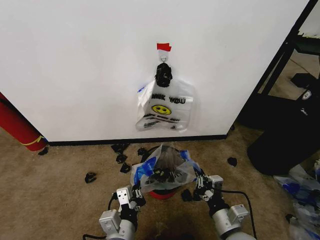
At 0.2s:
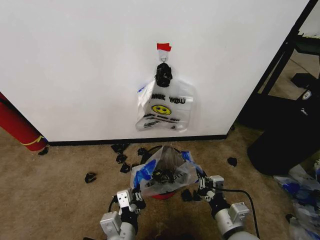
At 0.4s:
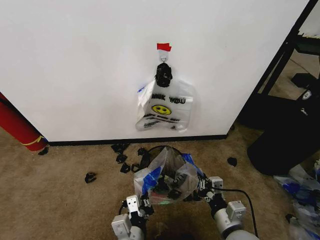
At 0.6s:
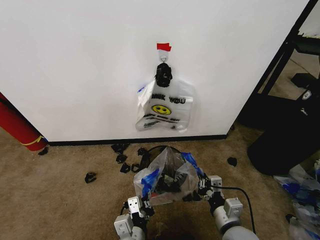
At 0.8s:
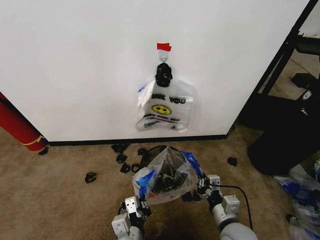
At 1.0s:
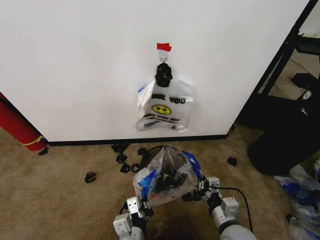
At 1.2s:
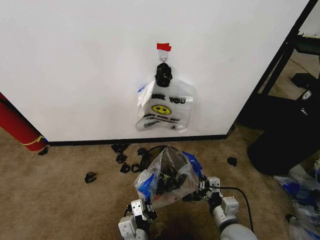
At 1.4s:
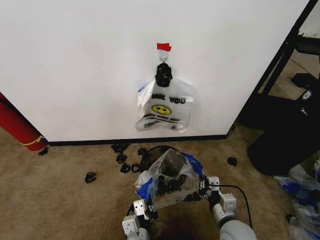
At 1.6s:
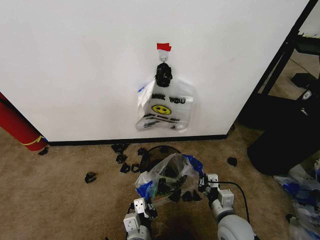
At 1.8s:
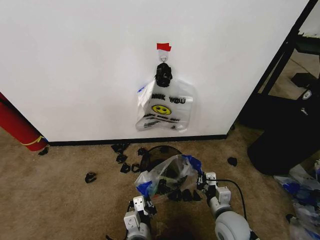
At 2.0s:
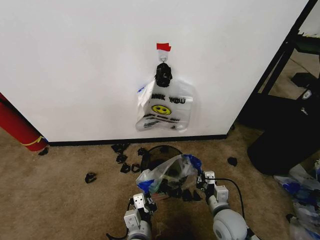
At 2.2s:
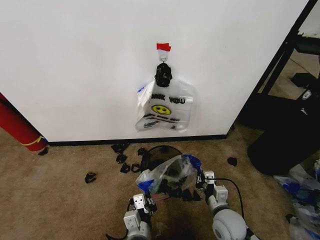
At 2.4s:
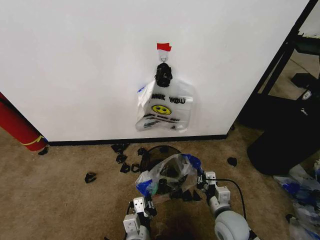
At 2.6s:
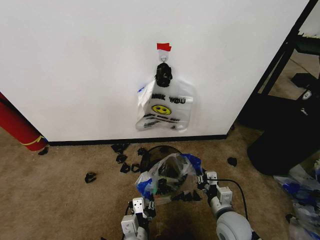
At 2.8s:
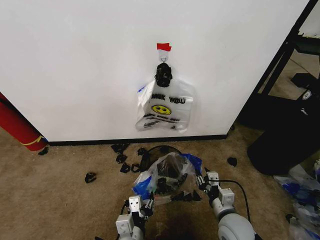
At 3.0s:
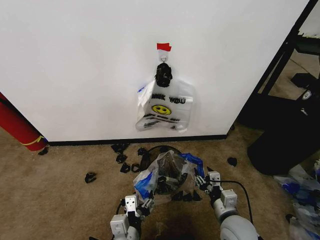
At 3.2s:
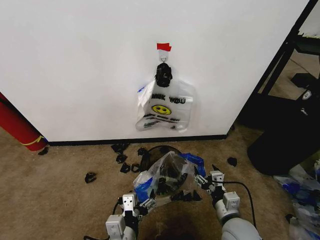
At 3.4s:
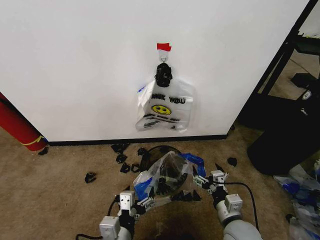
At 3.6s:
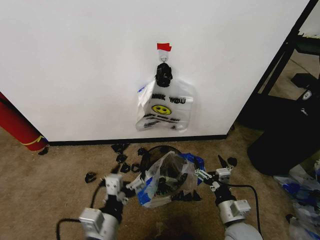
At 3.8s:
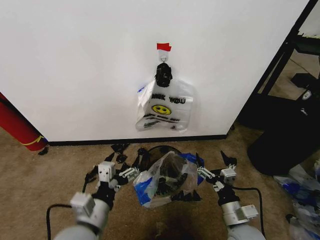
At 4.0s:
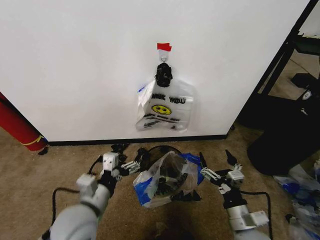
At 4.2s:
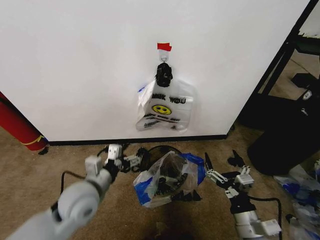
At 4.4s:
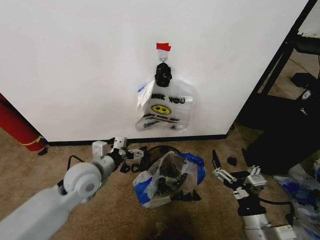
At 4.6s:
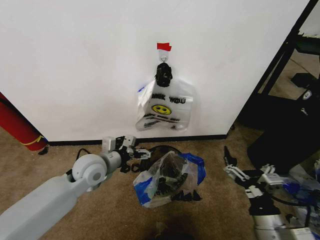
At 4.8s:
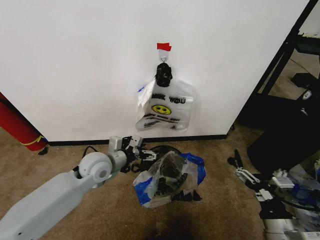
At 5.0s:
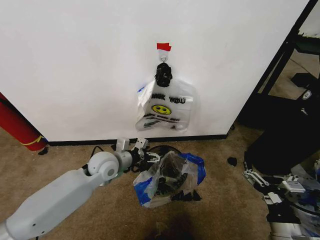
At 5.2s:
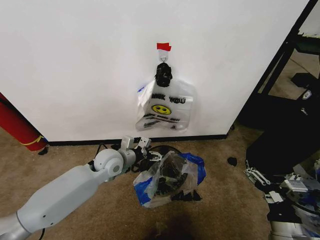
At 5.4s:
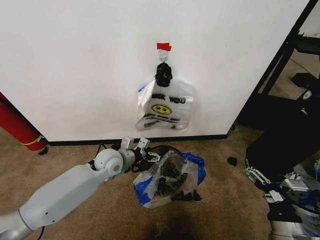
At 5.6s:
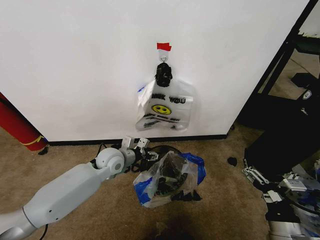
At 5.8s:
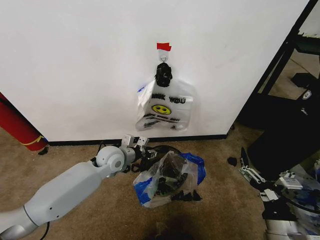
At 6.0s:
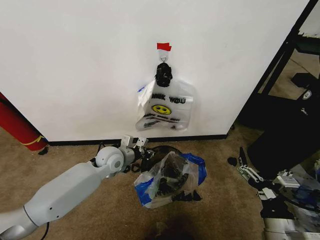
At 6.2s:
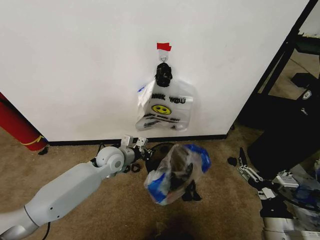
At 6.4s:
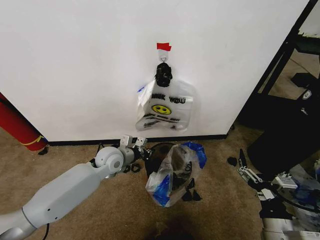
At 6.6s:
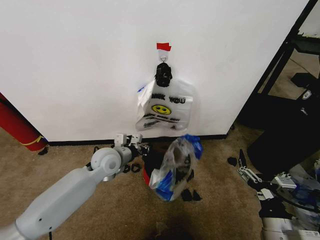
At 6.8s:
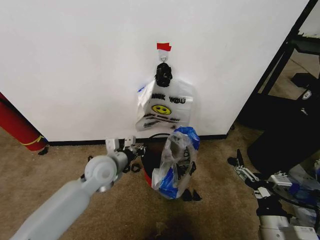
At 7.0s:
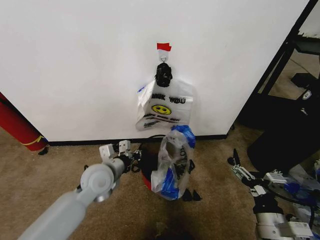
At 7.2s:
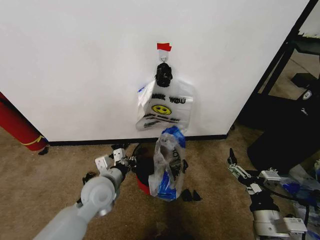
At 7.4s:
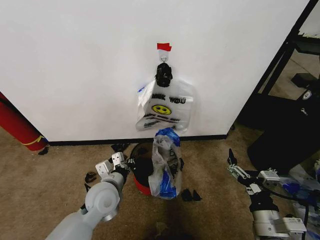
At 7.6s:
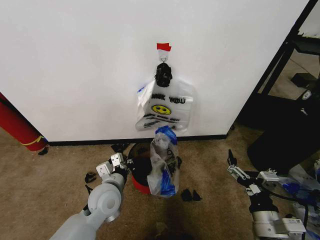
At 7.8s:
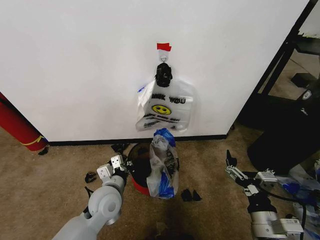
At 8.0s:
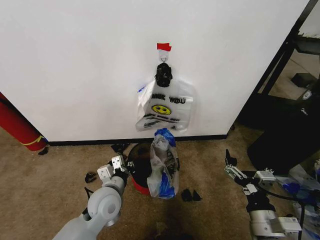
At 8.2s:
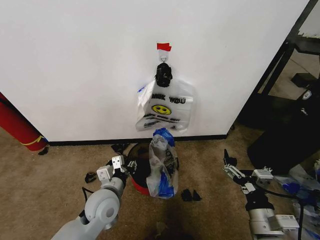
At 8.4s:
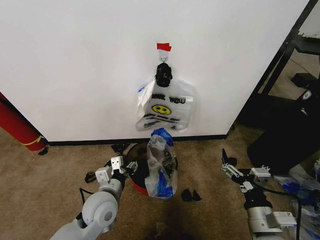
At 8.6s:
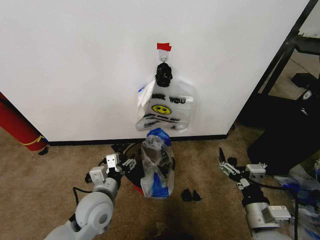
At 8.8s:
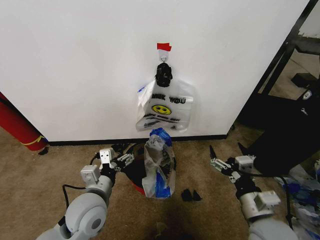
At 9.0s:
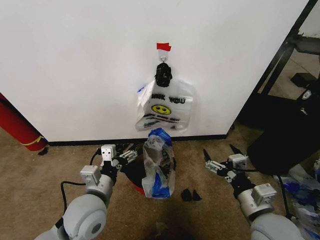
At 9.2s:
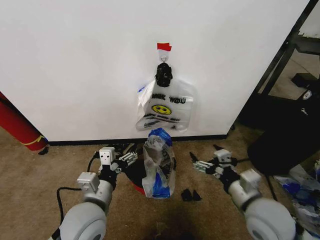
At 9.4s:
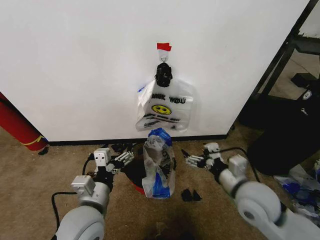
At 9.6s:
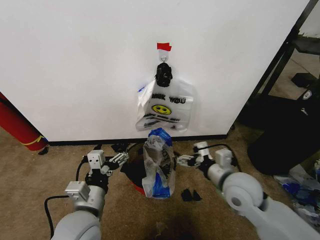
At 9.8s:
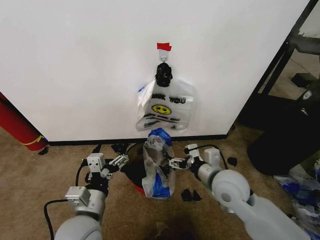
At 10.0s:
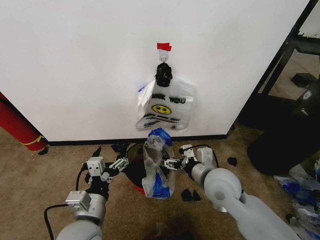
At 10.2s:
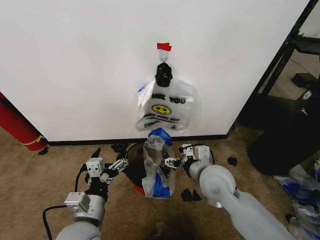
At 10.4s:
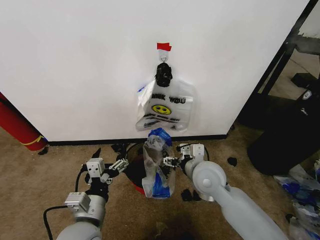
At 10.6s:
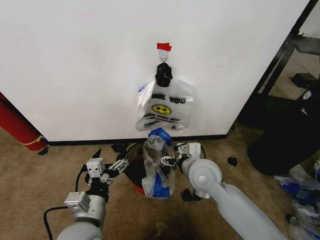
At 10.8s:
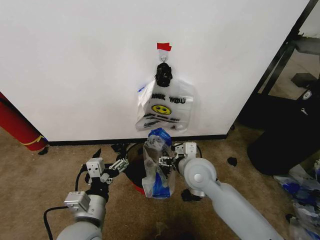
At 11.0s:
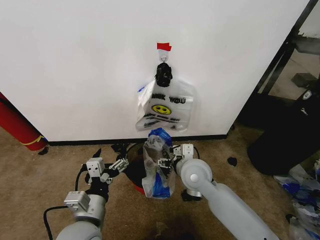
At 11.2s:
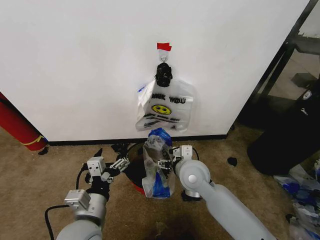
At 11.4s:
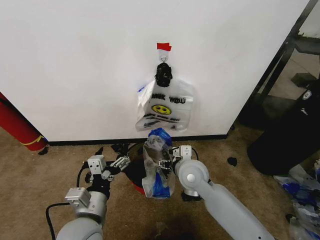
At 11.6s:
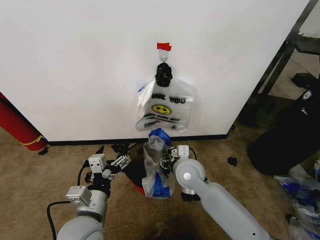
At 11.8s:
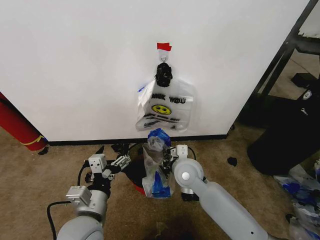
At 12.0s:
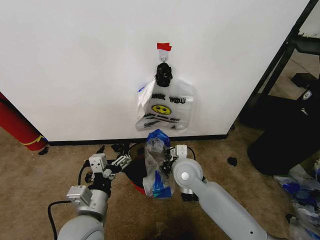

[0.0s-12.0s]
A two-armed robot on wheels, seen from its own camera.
Task of the whole recording: Pick up the garbage bag from the wall and place it over the trash bin.
0.0s to 1.6s: The left gripper is displaced downward by roughly 5 cm, while the right gripper ends up roughly 5 cm from where it was.
1.6s to 3.0s: The right gripper opens up. Meanwhile the left gripper ends up about 5 cm from where it was, and opens.
3.0s to 4.4s: The left gripper shifts some 25 cm forward, to the left and upward, while the right gripper goes roughly 10 cm backward and upward, and opens.
4.4s to 6.0s: The left gripper moves forward and downward, roughly 10 cm, and closes its fingers.
6.0s to 7.6s: The left gripper moves backward, about 15 cm.
7.6s to 9.0s: The right gripper changes place by about 5 cm. Meanwhile the left gripper moves upward and backward, approximately 10 cm, and opens.
9.0s to 10.4s: The left gripper heads backward, covering approximately 5 cm. Meanwhile the right gripper goes approximately 20 cm forward and to the left.
10.4s to 12.0s: The right gripper travels to the left by some 5 cm, and closes.

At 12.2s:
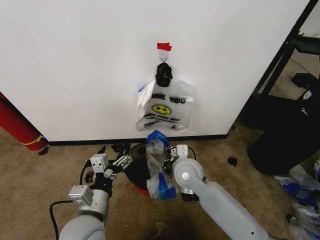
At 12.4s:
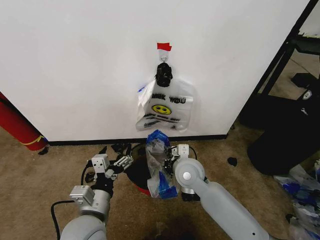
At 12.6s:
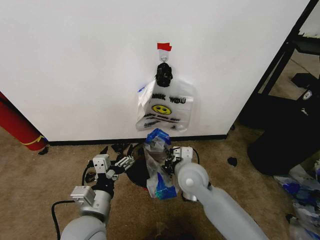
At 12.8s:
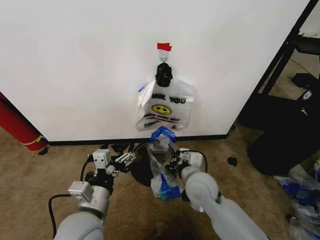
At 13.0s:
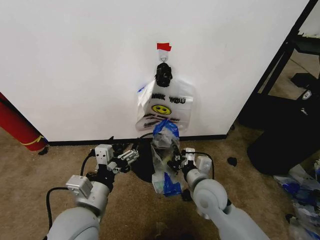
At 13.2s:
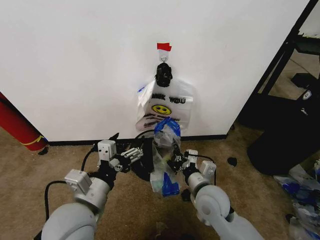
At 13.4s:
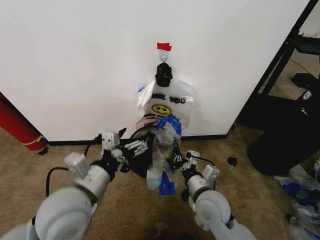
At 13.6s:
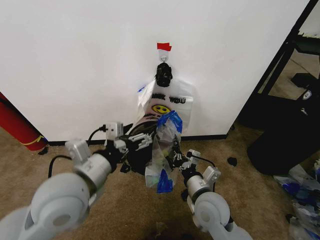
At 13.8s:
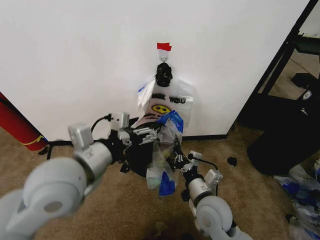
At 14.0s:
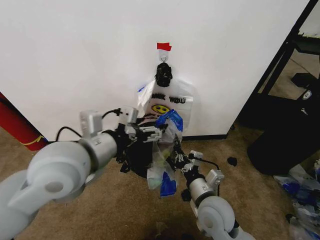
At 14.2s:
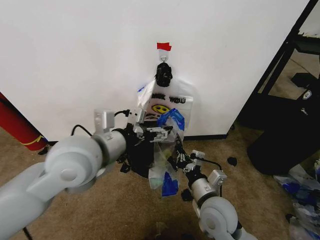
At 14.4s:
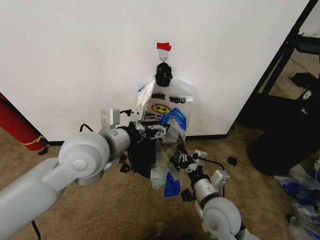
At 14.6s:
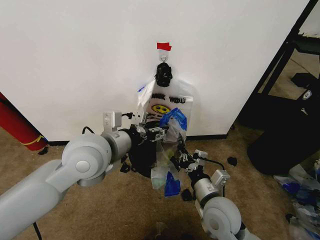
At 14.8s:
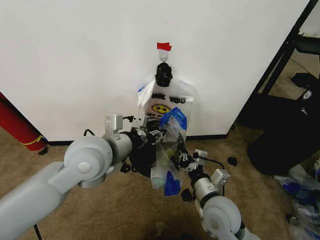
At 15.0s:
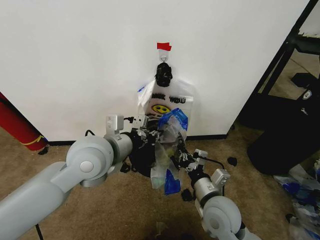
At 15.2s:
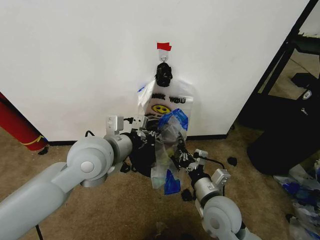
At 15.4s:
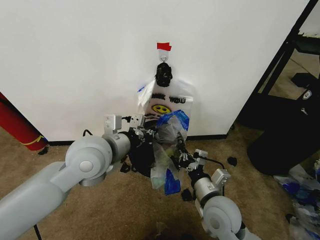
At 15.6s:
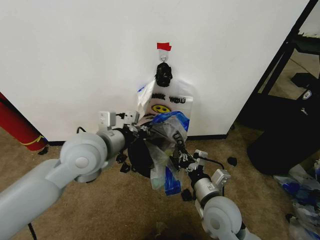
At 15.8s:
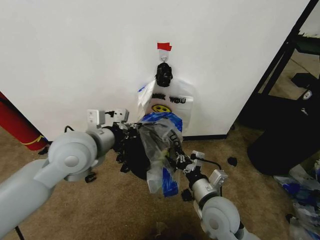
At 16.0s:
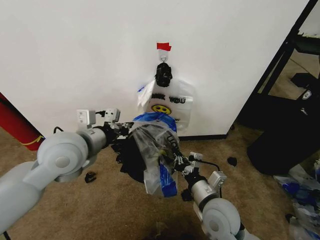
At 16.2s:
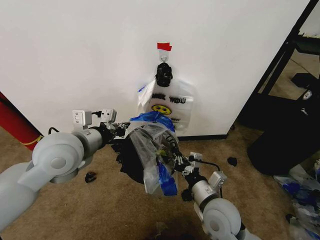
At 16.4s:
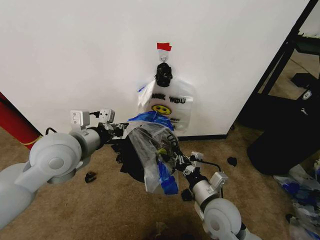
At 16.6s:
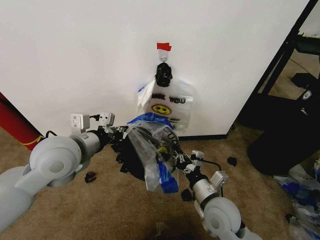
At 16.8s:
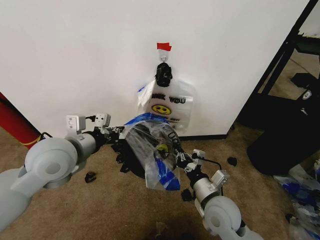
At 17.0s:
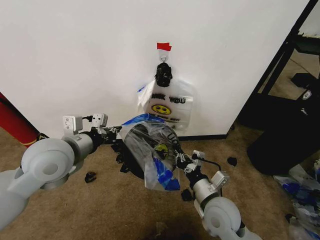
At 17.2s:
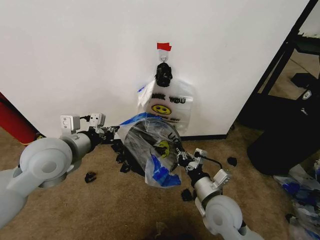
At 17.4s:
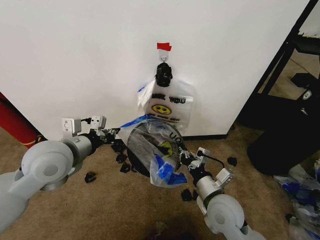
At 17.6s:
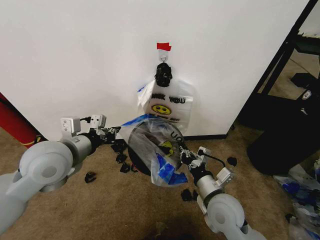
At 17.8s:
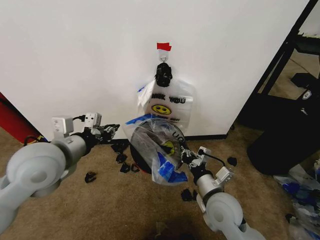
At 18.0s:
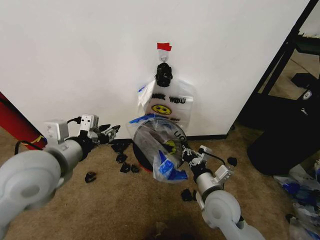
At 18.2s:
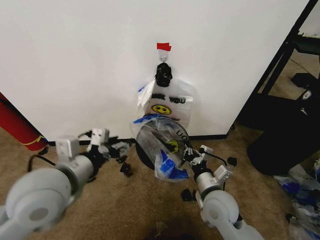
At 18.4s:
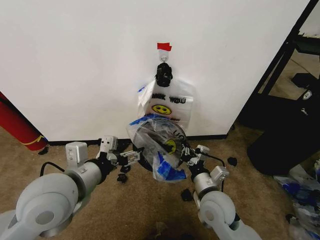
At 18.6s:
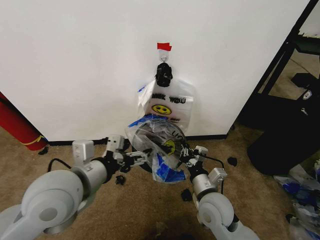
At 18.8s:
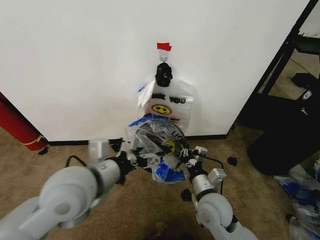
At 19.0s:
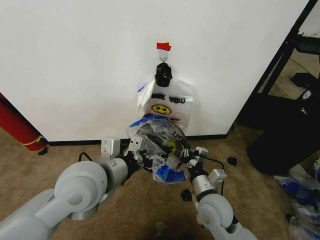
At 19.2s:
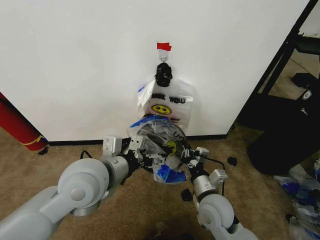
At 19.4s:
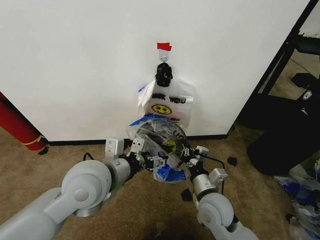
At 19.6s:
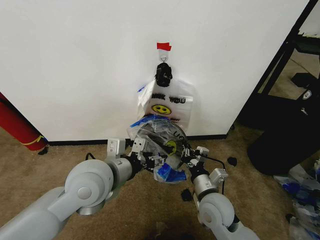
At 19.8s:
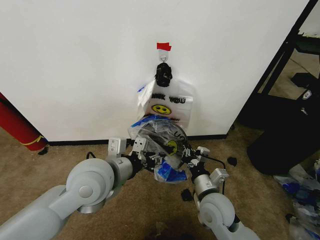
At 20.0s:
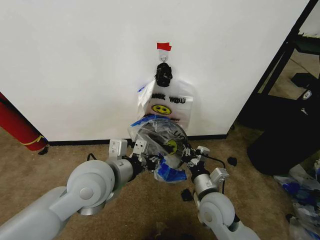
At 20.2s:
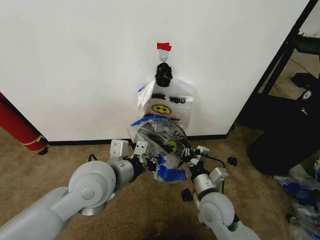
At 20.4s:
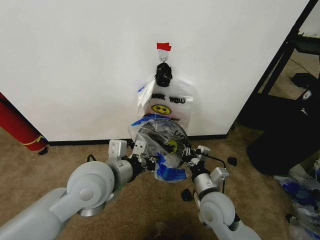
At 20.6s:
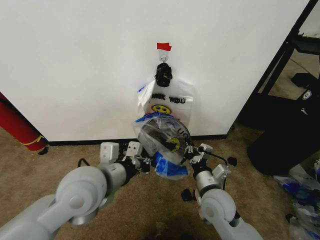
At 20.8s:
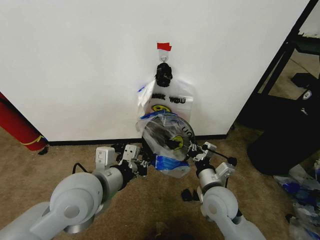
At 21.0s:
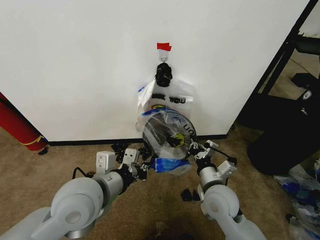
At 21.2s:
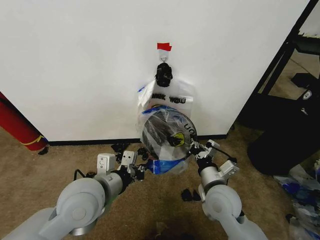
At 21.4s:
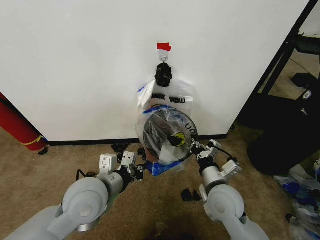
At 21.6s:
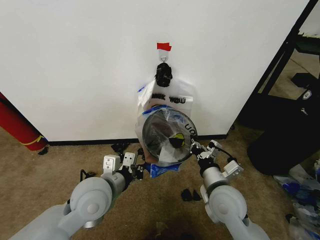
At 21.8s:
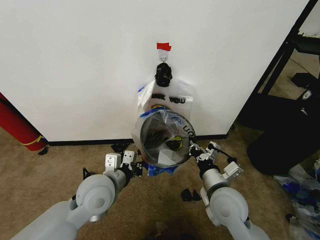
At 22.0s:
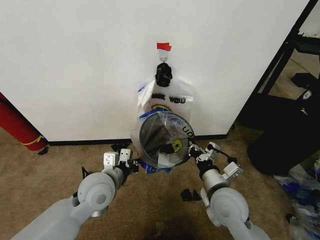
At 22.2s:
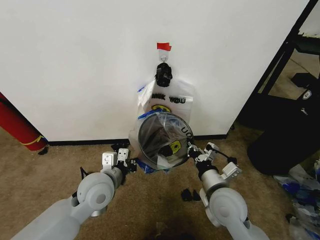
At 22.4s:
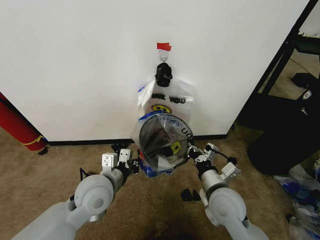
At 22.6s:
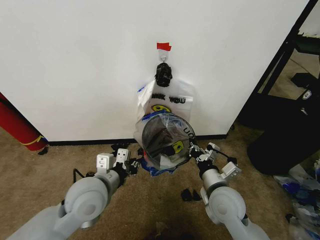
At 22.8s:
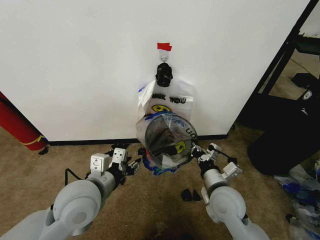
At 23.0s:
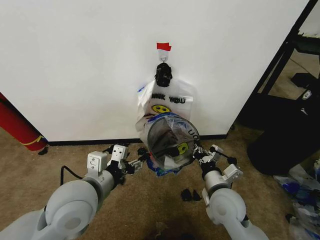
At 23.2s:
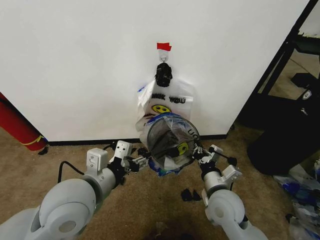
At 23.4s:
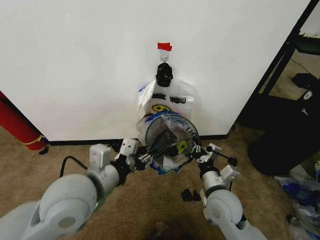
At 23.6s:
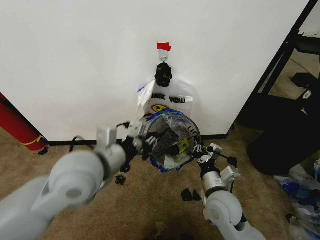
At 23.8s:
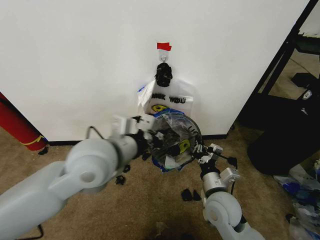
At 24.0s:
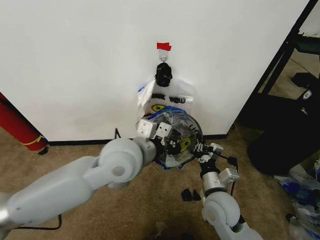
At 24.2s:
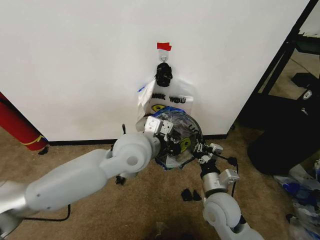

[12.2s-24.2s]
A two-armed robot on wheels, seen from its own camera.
Task of the whole recording: Pick up the garbage bag from the wall and place it over the trash bin.
12.2s to 13.8s: The right gripper shifts roughly 15 cm backward and to the right. The left gripper travels upward by roughly 15 cm.
13.8s to 15.2s: The left gripper is displaced forward by roughly 5 cm, and closes.
15.2s to 16.6s: The left gripper heads to the left, covering roughly 5 cm.
16.6s to 18.2s: The left gripper heads backward, covering about 10 cm, and opens its fingers.
18.2s to 19.8s: The left gripper is displaced to the right by some 5 cm.
19.8s to 21.2s: The left gripper closes its fingers.
22.6s to 24.2s: The left gripper travels to the right, upward and forward by approximately 15 cm, and opens and closes again.
